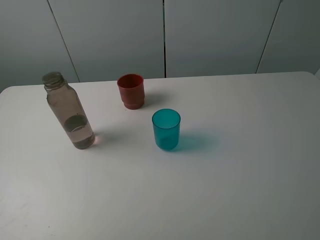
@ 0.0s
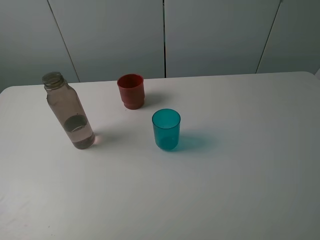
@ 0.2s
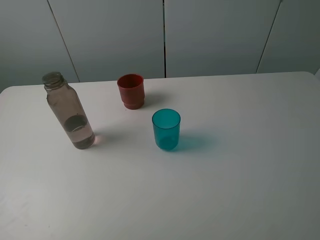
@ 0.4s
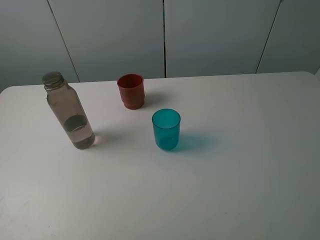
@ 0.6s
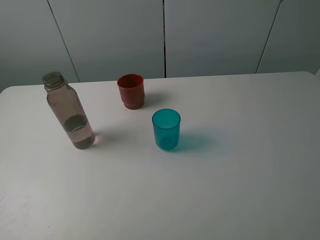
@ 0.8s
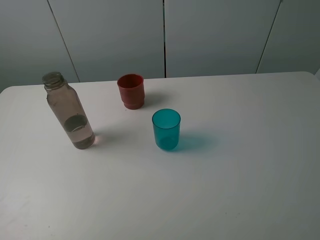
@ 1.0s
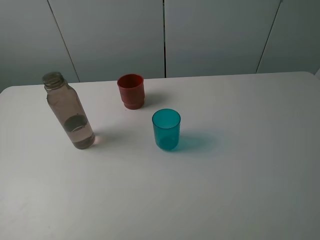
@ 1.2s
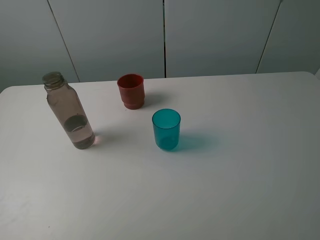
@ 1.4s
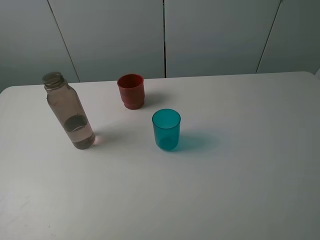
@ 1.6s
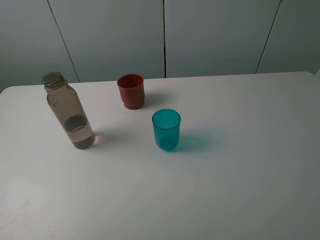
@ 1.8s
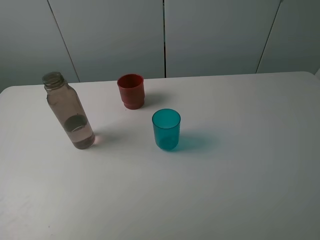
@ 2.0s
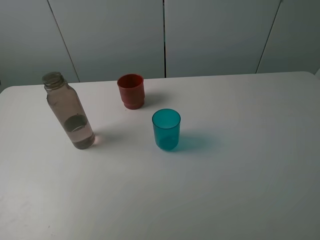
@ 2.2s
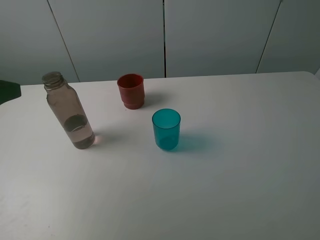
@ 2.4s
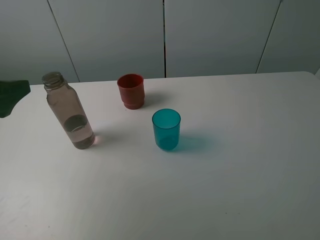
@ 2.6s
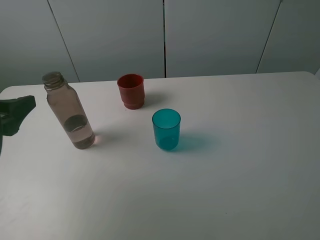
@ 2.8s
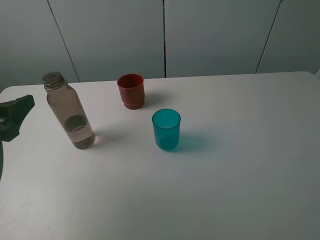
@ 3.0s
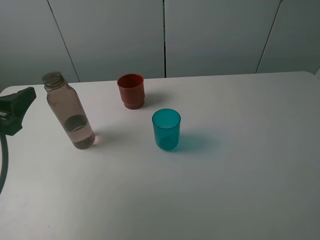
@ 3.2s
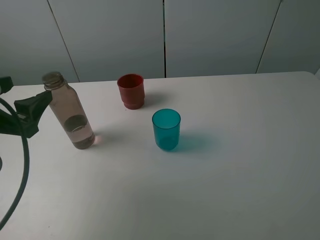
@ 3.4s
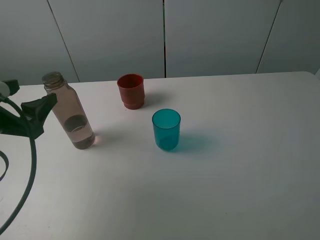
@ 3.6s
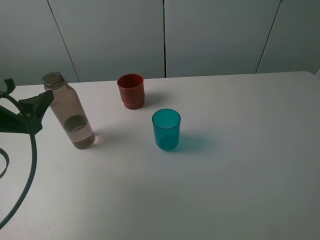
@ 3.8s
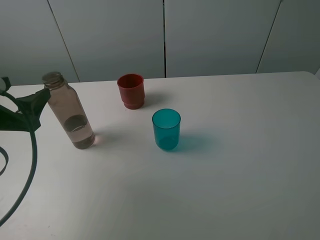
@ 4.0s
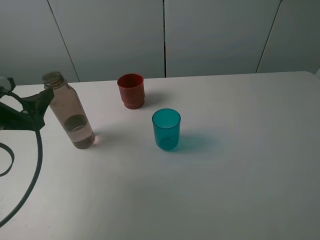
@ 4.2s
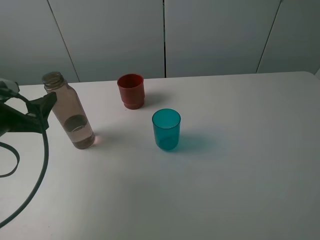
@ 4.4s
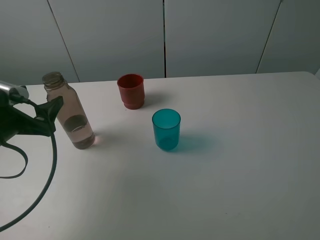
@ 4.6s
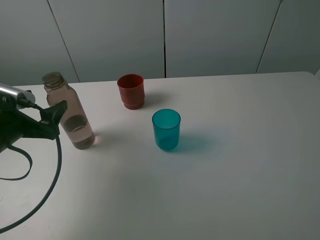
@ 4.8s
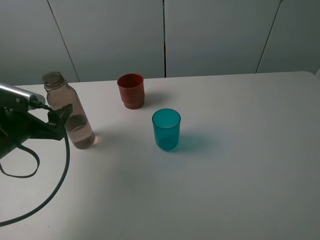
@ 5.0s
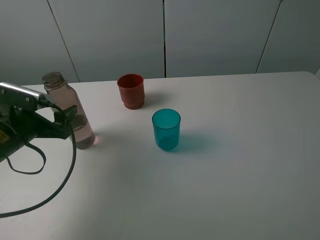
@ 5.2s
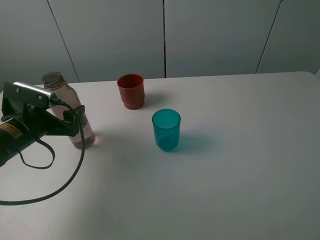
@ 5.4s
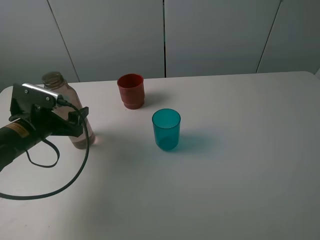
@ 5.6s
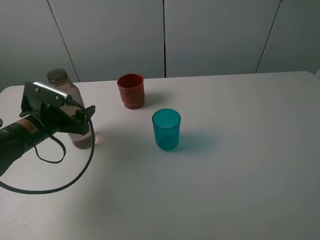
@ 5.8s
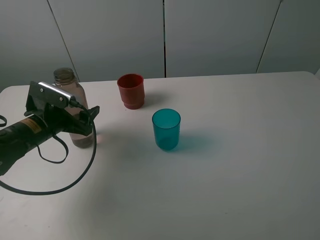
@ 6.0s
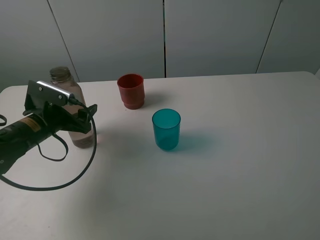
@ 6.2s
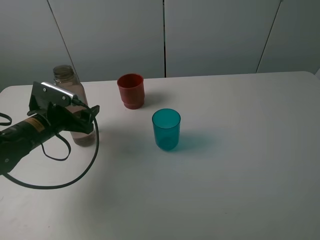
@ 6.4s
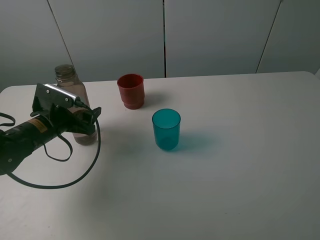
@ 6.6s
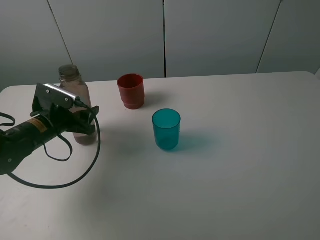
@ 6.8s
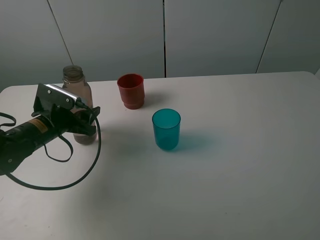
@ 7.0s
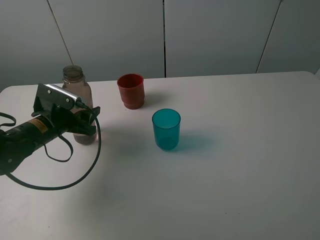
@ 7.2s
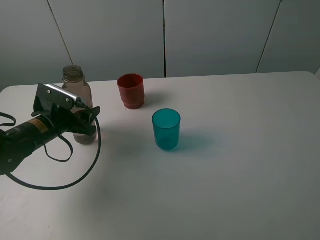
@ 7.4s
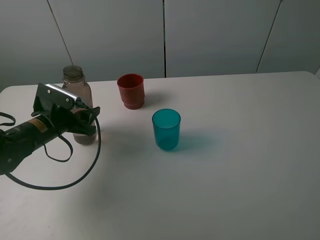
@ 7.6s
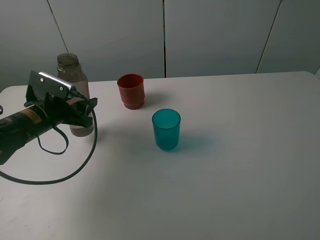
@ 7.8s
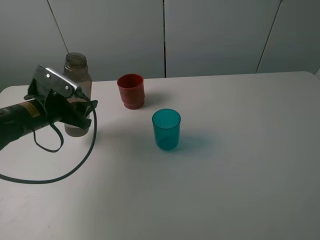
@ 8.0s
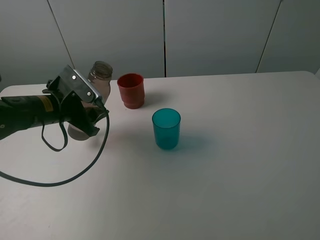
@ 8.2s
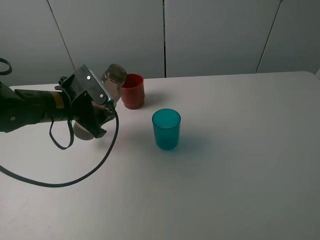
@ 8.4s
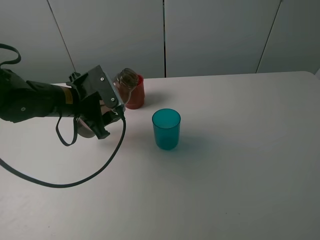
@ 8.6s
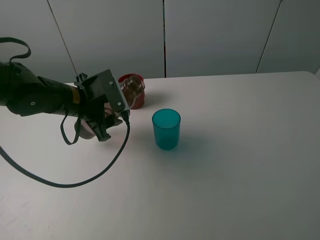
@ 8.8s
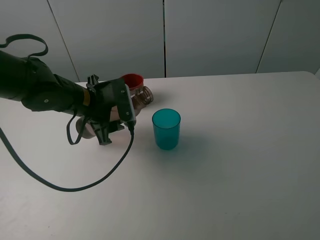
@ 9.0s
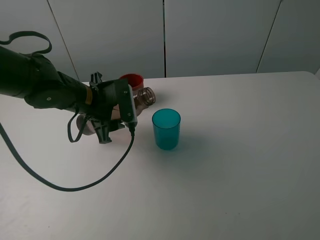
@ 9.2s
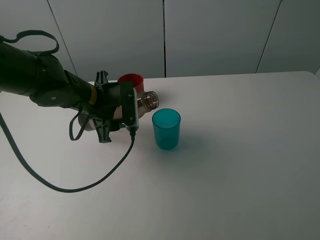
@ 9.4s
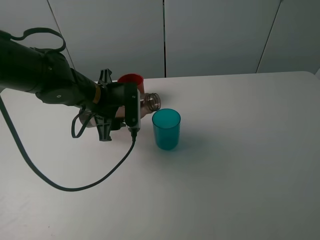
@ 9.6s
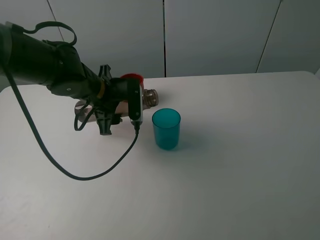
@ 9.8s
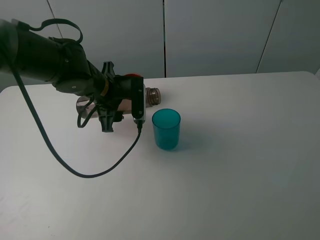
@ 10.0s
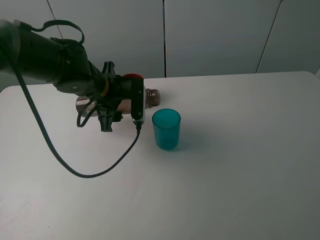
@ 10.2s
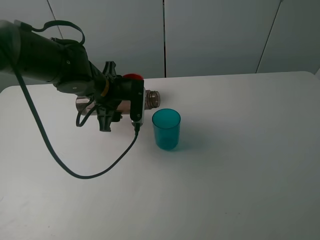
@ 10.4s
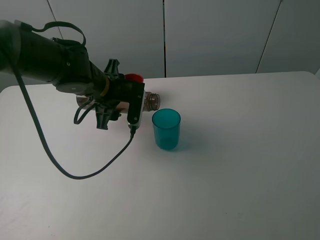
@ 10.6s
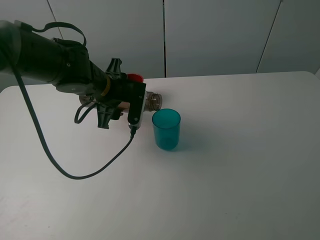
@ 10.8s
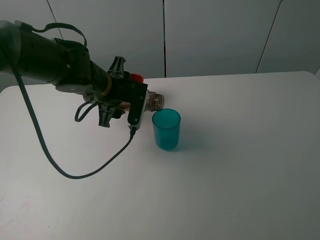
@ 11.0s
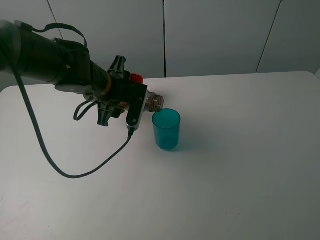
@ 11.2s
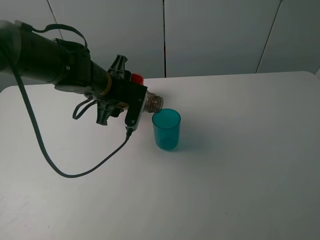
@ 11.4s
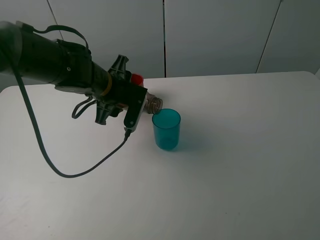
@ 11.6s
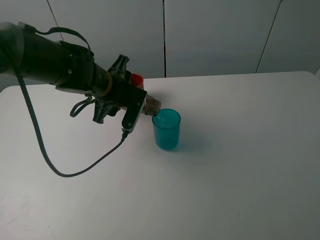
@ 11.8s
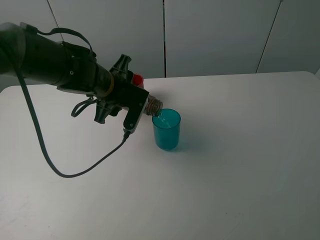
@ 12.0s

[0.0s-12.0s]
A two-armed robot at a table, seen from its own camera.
Task of the whole recording: pick up the bottle and pour water into the cup, then pick up the cup containing water and pour it into another cup.
0.0s to 1.6s: Neither gripper changes place.
1.6s to 3.0s: The left gripper moves forward and downward, roughly 15 cm.
3.0s to 4.4s: The left gripper changes place by roughly 5 cm.
4.4s to 6.0s: The left gripper is displaced forward and downward by approximately 10 cm.
6.0s to 7.6s: The left gripper closes up.
7.6s to 9.0s: The left gripper shifts about 10 cm to the right and upward.

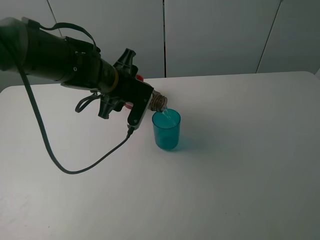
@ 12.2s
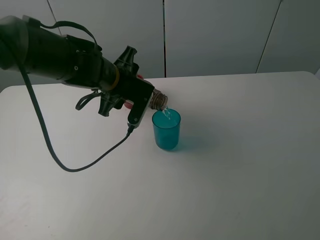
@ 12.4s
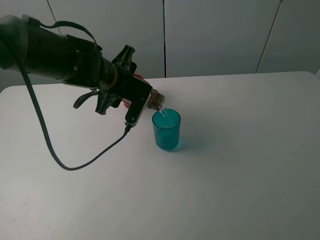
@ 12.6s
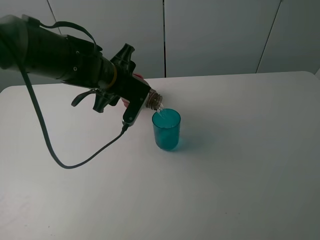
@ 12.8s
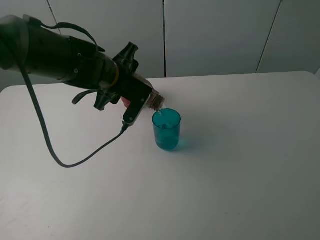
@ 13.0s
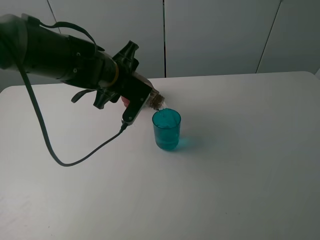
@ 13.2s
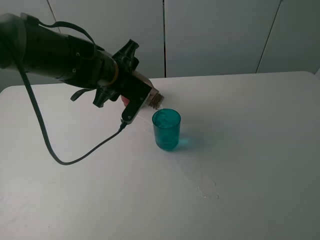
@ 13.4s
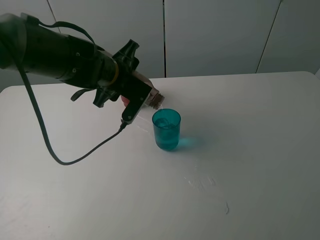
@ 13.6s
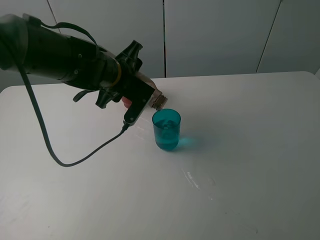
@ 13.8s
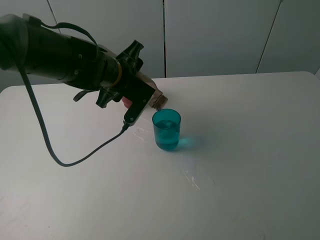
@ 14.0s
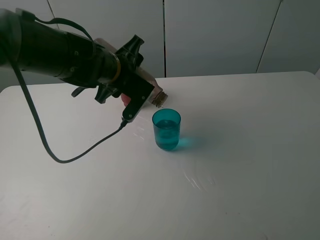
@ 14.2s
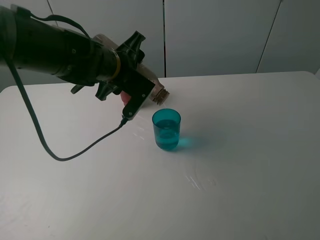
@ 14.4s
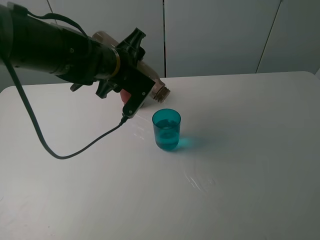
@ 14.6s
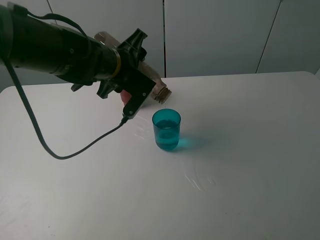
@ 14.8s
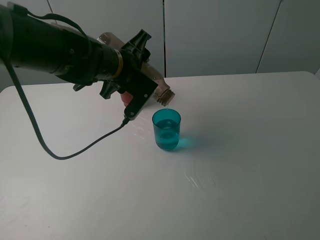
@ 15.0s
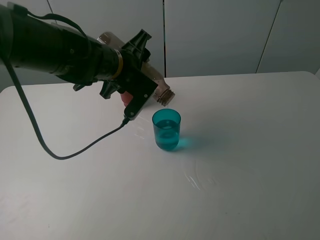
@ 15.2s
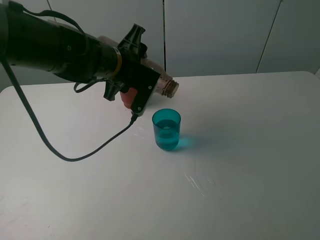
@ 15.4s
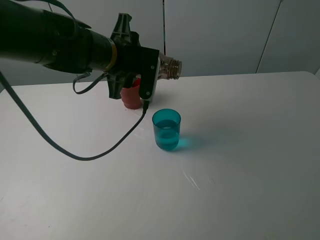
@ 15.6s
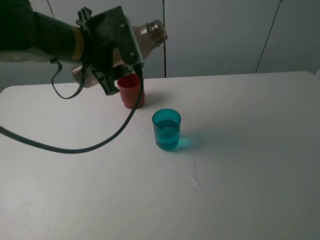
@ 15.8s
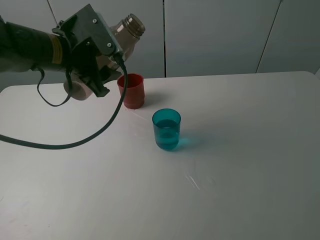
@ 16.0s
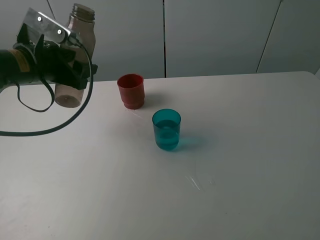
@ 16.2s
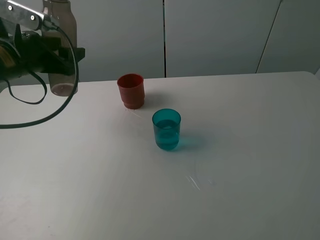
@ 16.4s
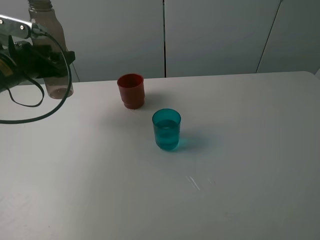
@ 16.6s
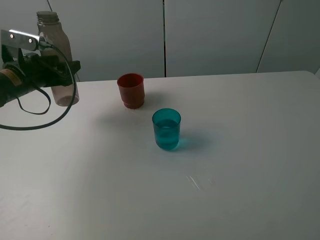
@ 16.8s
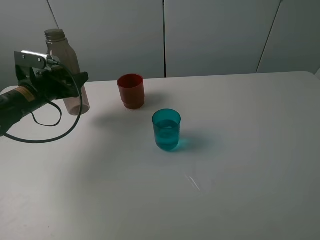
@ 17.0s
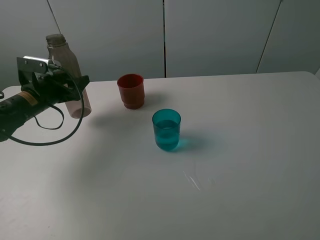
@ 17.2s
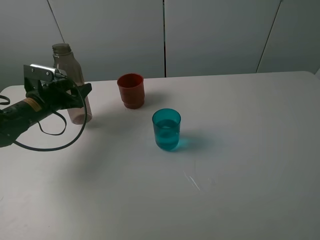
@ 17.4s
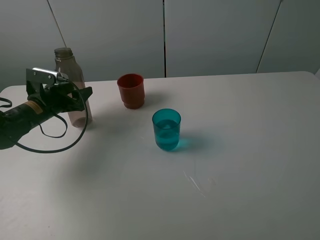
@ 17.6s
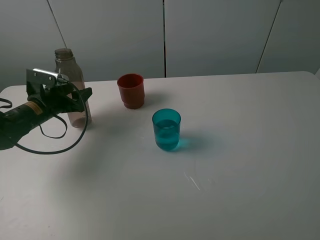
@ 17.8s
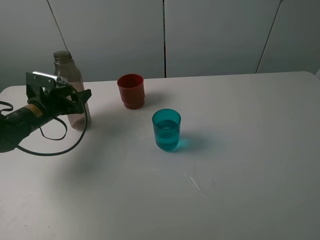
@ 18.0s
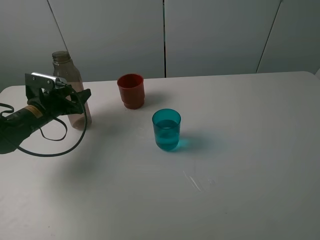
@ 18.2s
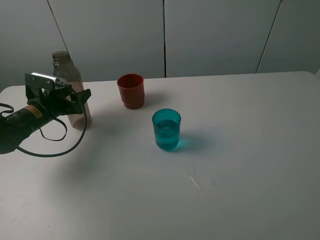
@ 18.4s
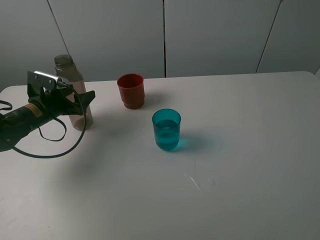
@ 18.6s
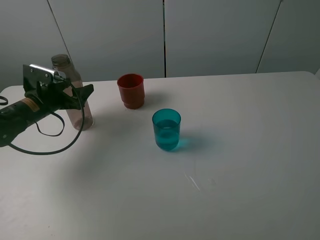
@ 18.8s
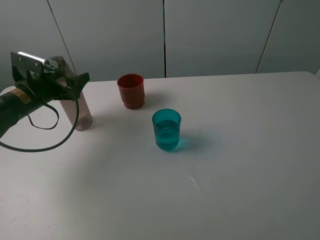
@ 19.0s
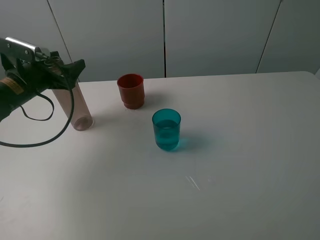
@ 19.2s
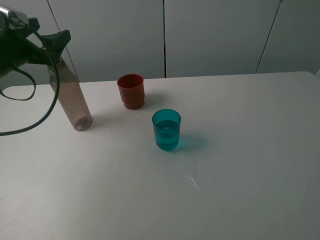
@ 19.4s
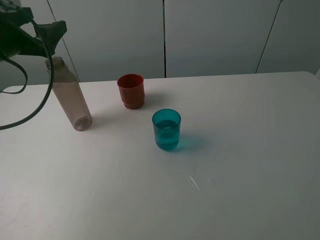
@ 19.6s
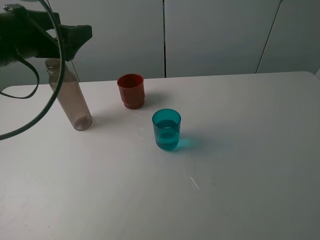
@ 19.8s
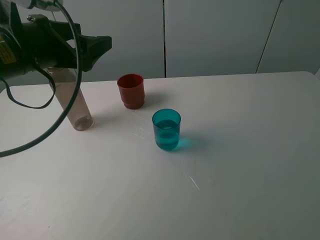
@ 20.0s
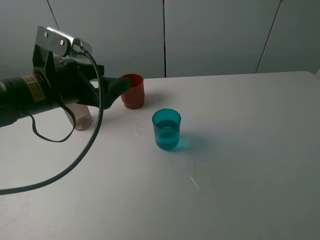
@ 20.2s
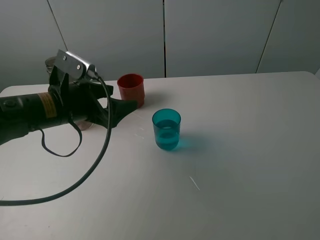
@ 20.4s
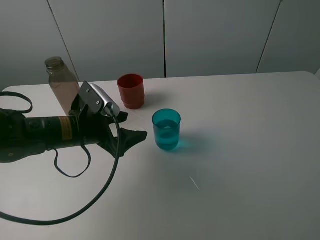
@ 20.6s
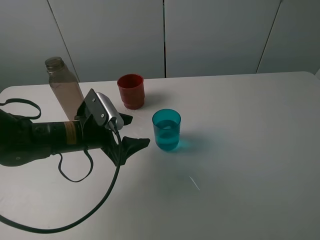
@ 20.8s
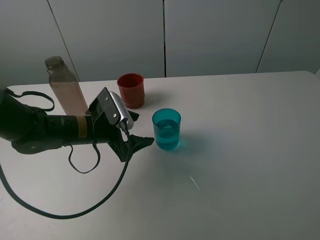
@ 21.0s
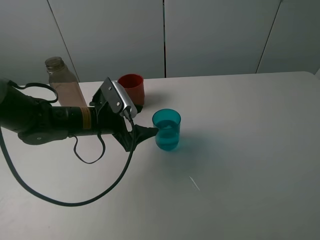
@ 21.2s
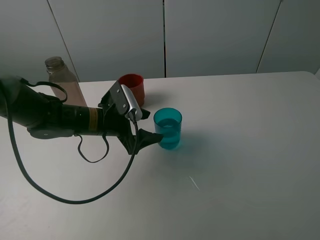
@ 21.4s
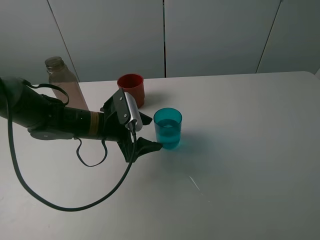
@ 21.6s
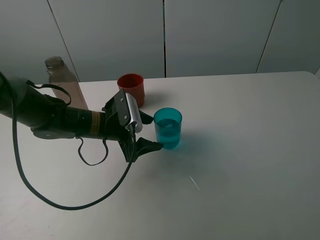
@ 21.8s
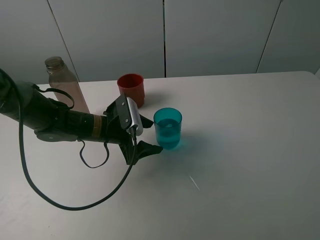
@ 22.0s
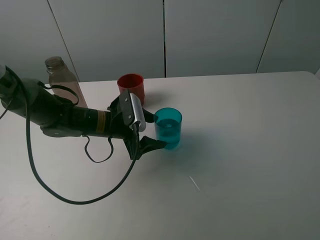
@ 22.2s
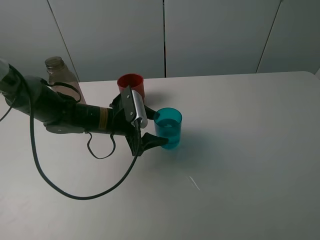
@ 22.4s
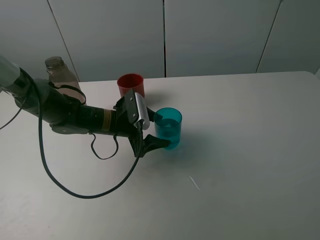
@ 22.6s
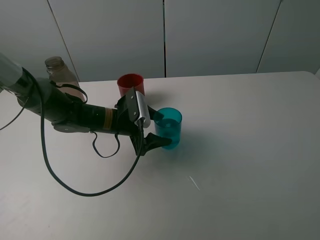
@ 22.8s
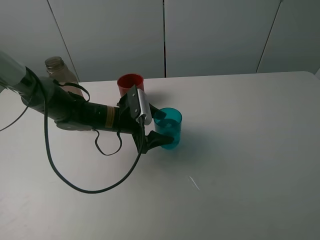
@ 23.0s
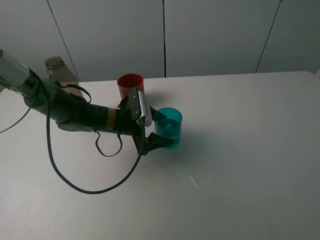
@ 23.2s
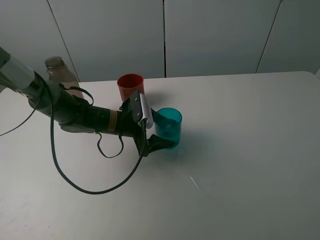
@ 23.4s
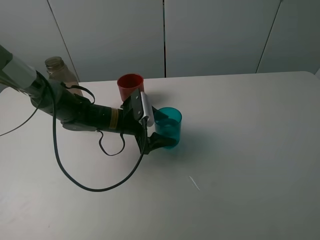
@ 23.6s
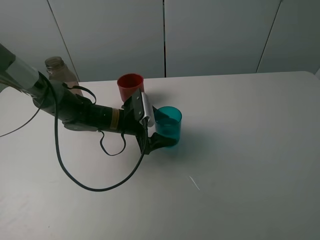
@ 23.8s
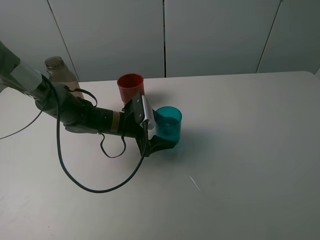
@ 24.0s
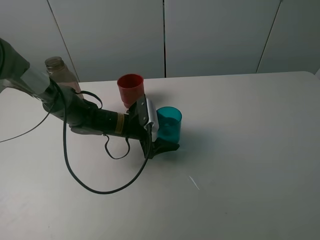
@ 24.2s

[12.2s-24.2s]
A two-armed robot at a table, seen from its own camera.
Task of the whole recording: pick up the bottle and pour water into the cup, then pick up the cup containing water and pour it into another cup.
12.2s to 15.2s: There are only small adjustments of the grippers.
15.2s to 16.6s: The left gripper goes about 20 cm to the left.
16.6s to 18.2s: The left gripper goes some 10 cm downward.
18.2s to 19.8s: The left gripper travels upward by approximately 20 cm, and opens.
19.8s to 21.2s: The left gripper travels downward and to the right by some 20 cm.
21.2s to 22.6s: The left gripper shifts by about 5 cm.
22.6s to 24.2s: There are only small adjustments of the grippers.
